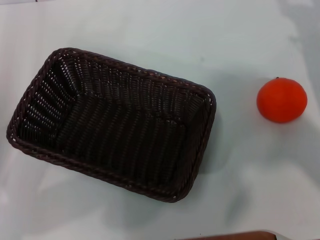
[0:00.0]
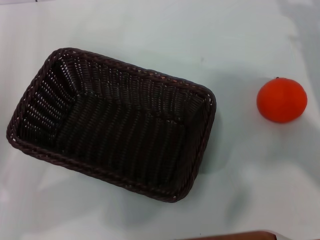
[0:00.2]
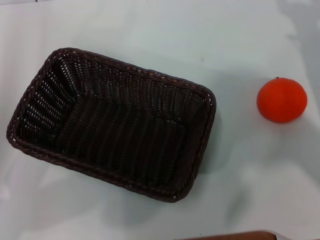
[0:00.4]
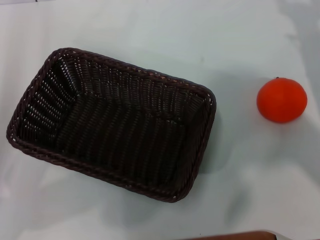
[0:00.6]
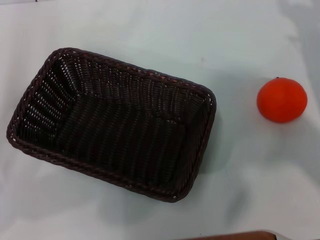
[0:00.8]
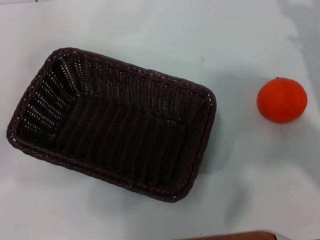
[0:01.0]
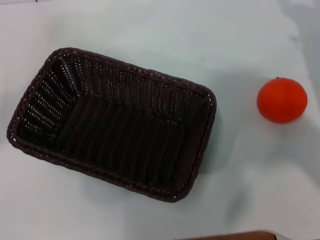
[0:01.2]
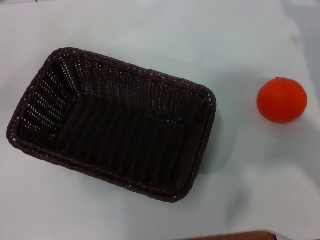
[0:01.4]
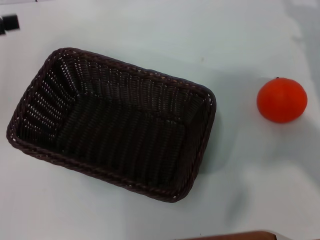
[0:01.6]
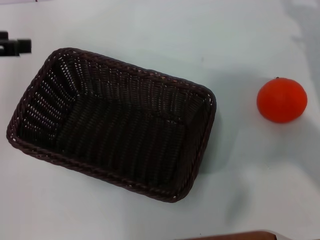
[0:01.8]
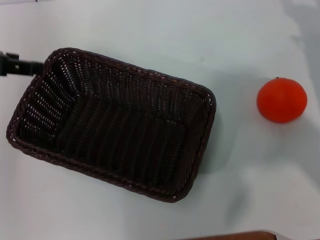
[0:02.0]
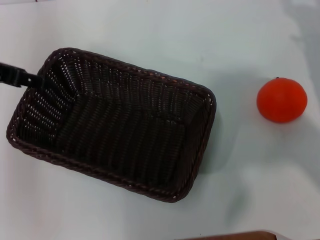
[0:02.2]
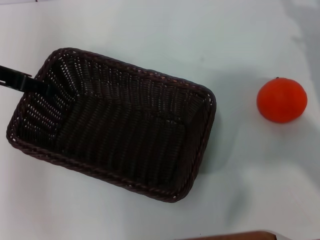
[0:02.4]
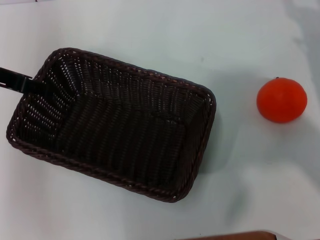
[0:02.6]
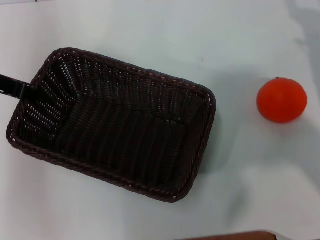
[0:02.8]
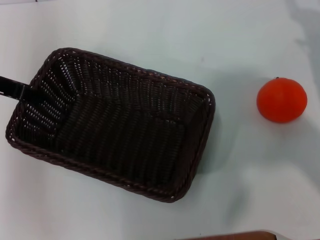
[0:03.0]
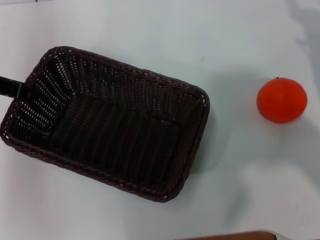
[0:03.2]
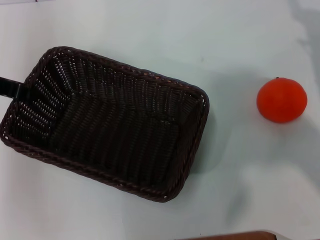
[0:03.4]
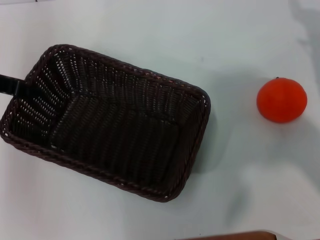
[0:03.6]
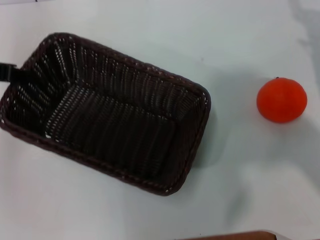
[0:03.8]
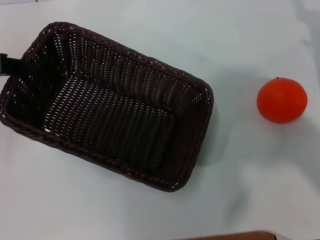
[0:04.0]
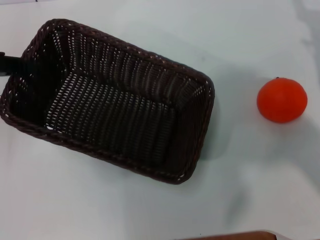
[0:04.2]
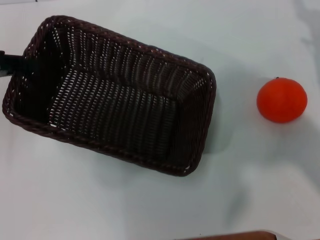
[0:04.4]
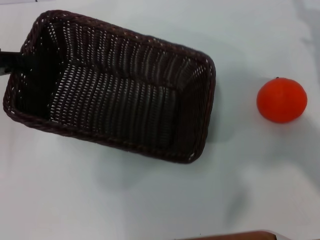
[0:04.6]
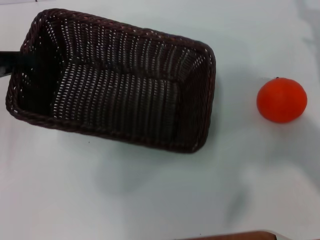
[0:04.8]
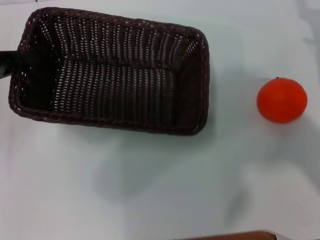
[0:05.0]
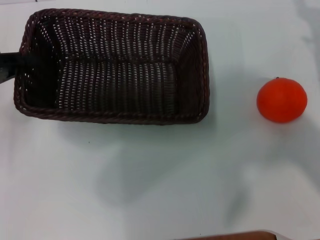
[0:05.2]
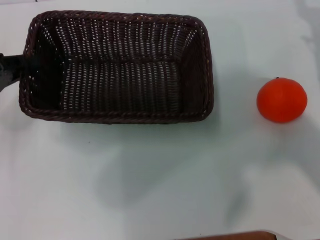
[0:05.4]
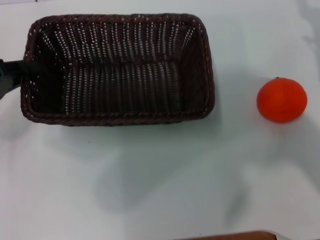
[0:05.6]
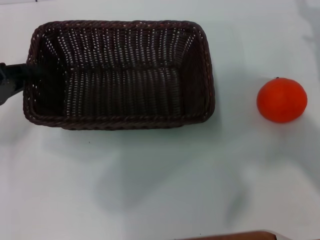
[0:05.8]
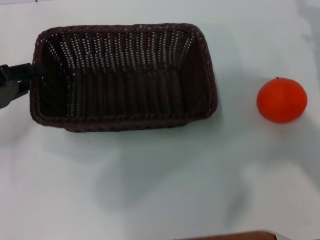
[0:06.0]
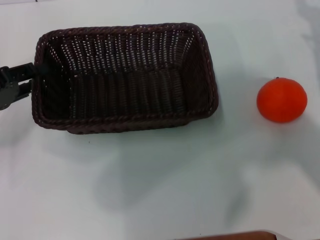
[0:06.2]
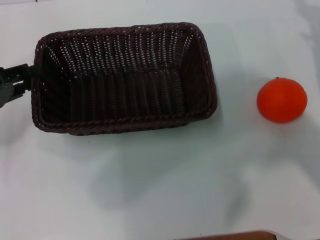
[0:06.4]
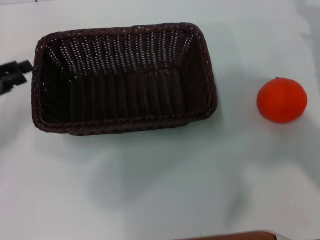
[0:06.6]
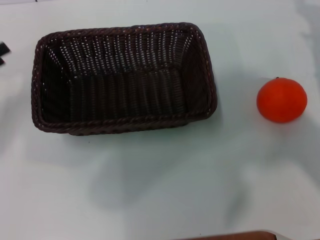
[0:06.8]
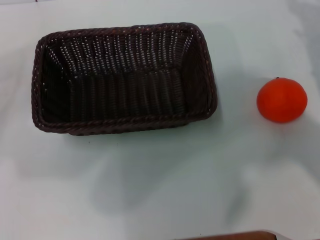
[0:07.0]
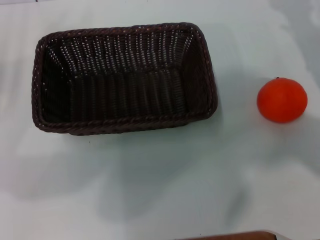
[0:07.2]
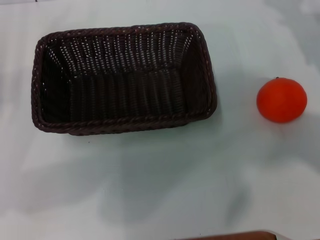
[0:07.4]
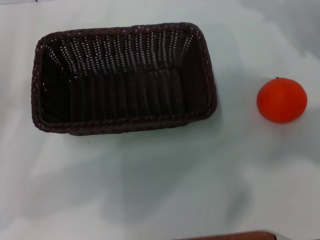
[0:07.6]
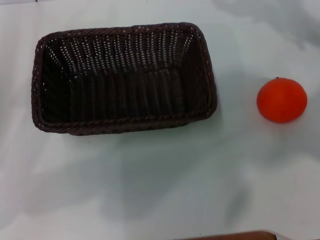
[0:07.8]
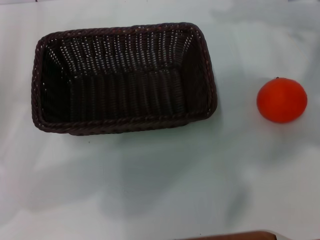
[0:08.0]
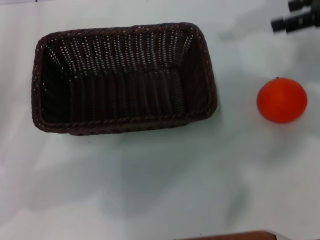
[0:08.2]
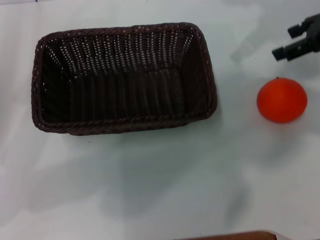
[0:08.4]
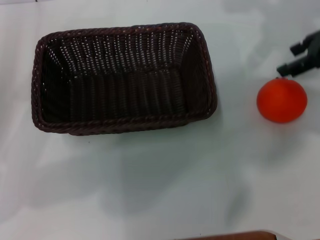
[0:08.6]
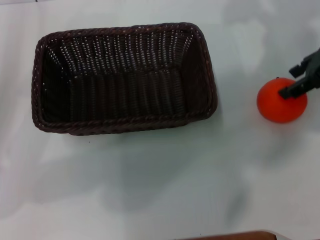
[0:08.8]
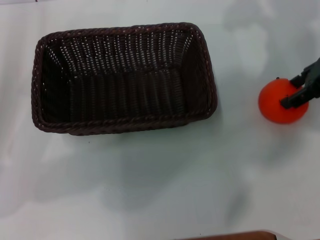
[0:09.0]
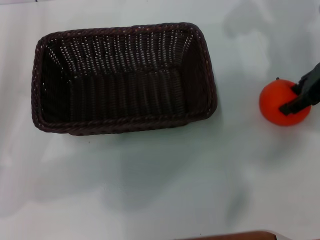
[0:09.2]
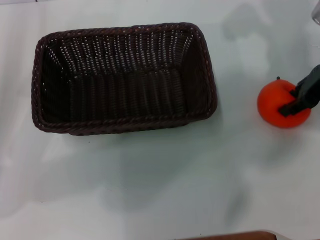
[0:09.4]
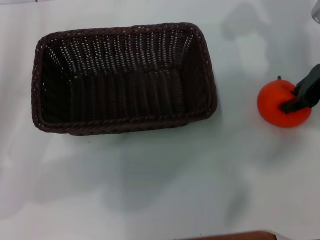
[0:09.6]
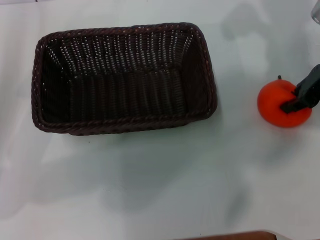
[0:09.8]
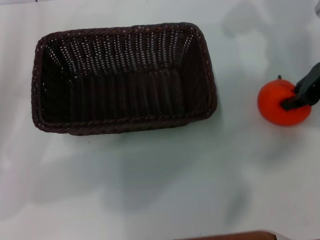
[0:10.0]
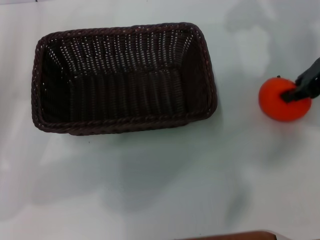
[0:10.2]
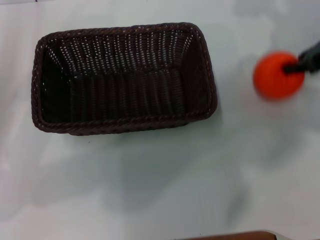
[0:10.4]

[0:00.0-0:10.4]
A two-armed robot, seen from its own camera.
Task of the whole recording: the left gripper pick up the black basket and place it horizontally in the middle of the table, the right gripper pick up the orange and place it into the black basket.
Step, 0:00.0 to 0:04.0: Pick up the dark basket with the left gripper.
Step, 0:04.2 to 0:06.4: Place the dark basket in the center of view with the left gripper.
Step, 0:06.8 to 0:10.4: Pick up the orange with the right gripper.
0:00.0 to 0:01.4: The left gripper travels upward and forward by about 15 cm.
0:01.4 to 0:03.0: The left gripper heads to the right, covering some 10 cm.
0:03.0 to 0:04.4: The left gripper moves to the left, some 5 cm, and closes up.
0:04.4 to 0:06.0: The left gripper goes some 10 cm downward.
0:06.0 to 0:07.4: The left gripper ends up about 5 cm from where it was, and opens its fingers. The right gripper moves some 5 cm.
0:07.4 to 0:09.0: The right gripper goes some 10 cm upward and to the left.
0:09.0 to 0:10.4: The right gripper closes.

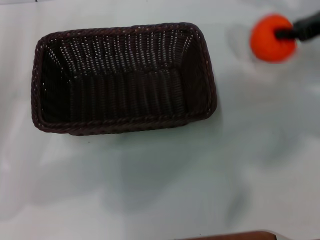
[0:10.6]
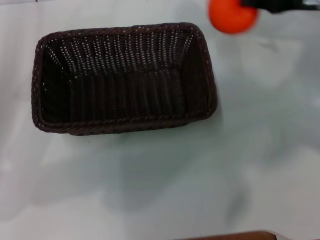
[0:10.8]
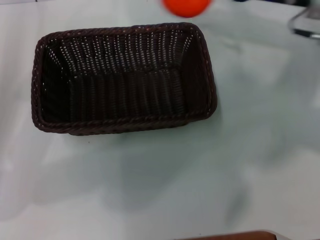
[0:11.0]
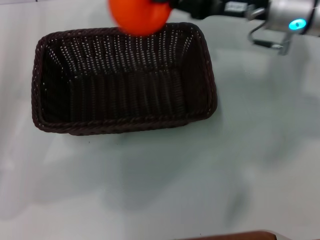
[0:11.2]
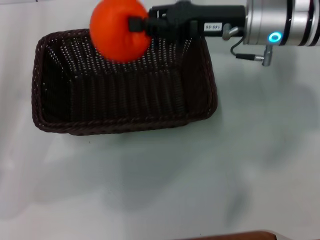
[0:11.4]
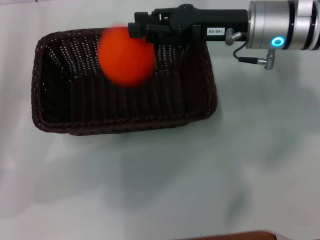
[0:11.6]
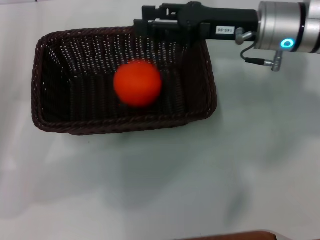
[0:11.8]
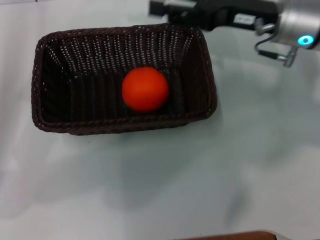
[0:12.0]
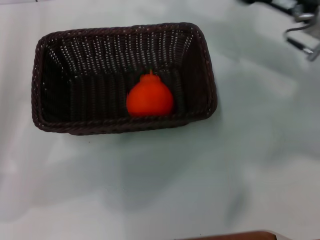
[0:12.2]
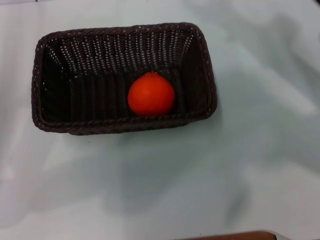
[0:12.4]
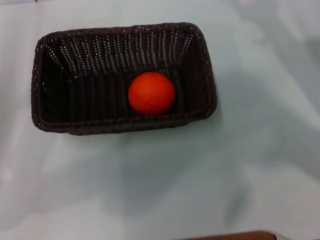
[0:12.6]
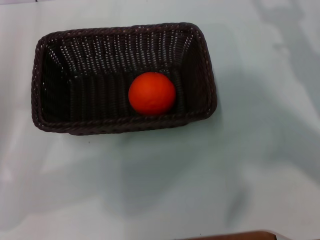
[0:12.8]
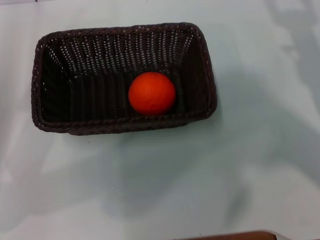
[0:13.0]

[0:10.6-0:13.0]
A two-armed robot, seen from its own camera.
Task of the whole recording: the left gripper pick up the black basket and place it horizontally in the middle of the table, the right gripper pick up the orange and place it into the black basket.
Step, 0:10.6 to 0:11.6: Place the orange into the dark basket with the right gripper.
0:10.6 to 0:11.8: The right gripper moves to the left, approximately 15 cm.
0:11.8 to 0:13.0: The right gripper moves to the right, backward and downward, some 20 cm, and opens.

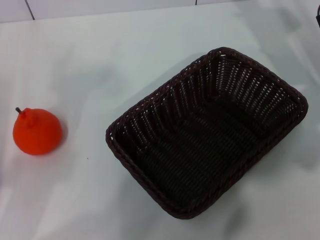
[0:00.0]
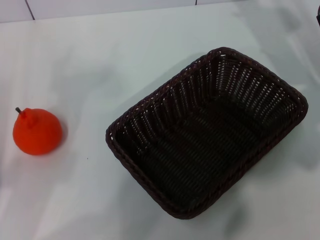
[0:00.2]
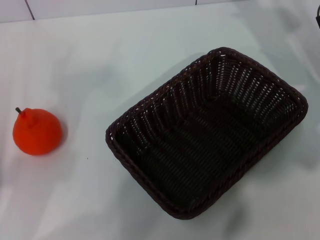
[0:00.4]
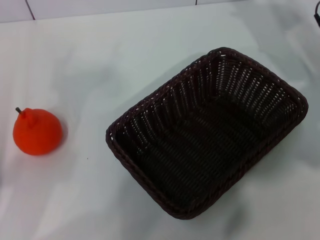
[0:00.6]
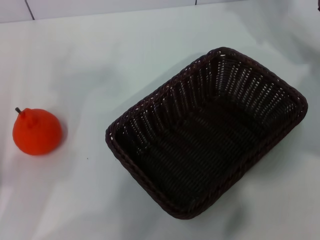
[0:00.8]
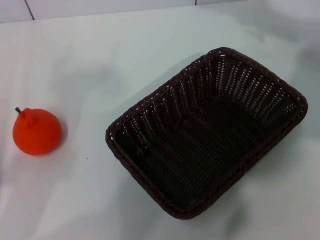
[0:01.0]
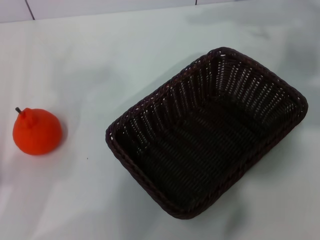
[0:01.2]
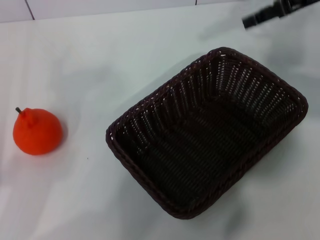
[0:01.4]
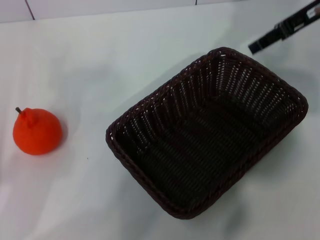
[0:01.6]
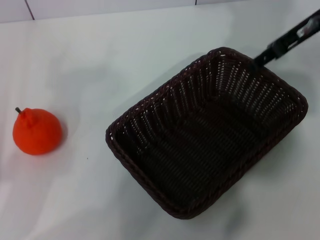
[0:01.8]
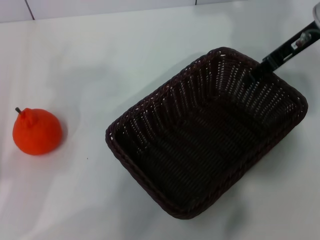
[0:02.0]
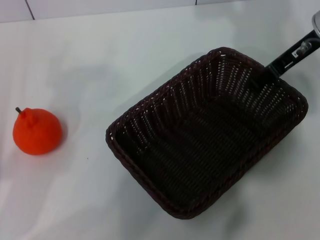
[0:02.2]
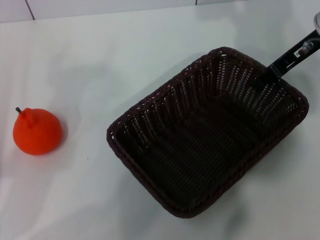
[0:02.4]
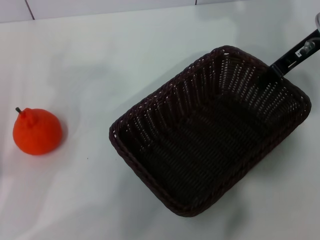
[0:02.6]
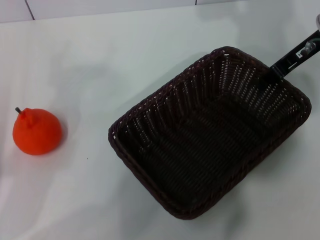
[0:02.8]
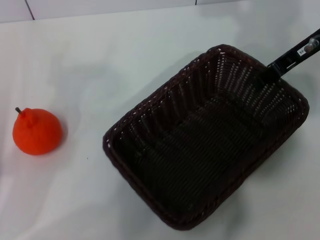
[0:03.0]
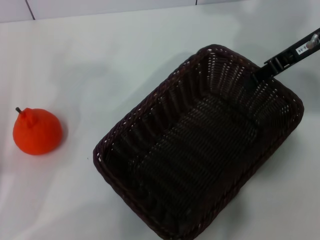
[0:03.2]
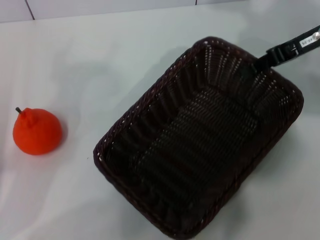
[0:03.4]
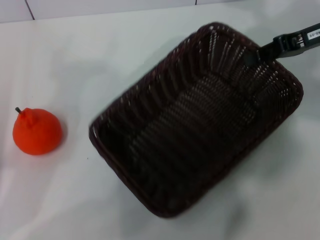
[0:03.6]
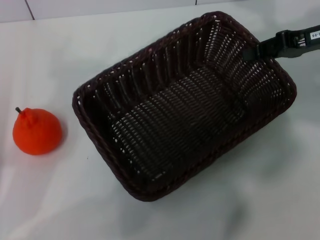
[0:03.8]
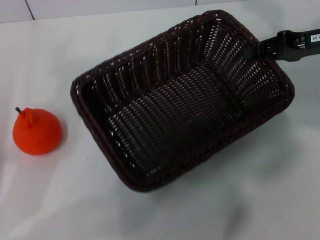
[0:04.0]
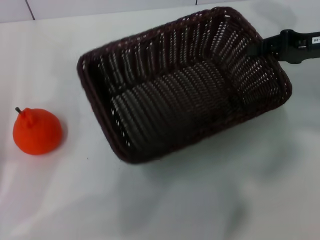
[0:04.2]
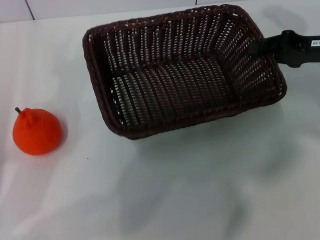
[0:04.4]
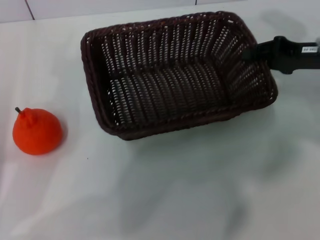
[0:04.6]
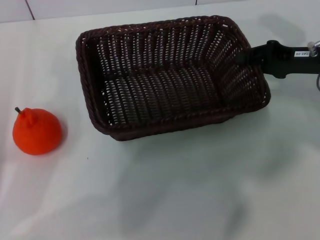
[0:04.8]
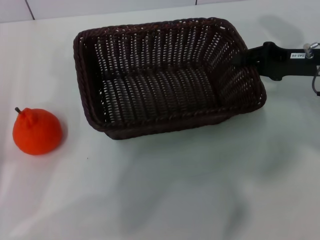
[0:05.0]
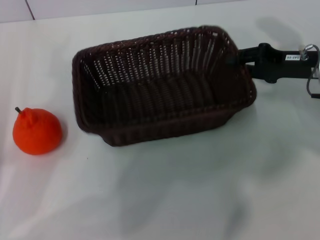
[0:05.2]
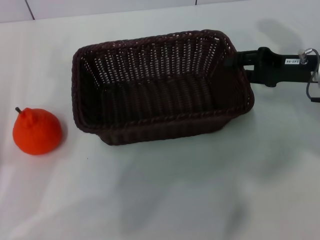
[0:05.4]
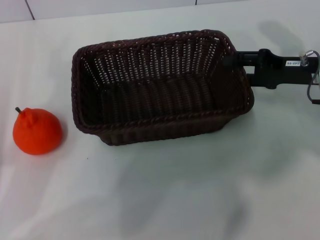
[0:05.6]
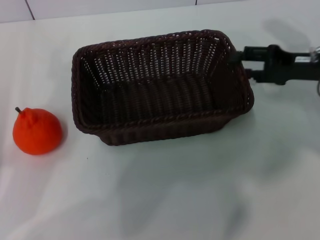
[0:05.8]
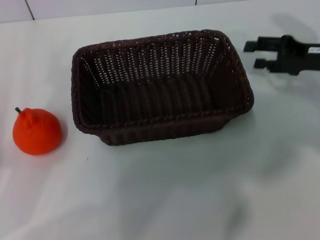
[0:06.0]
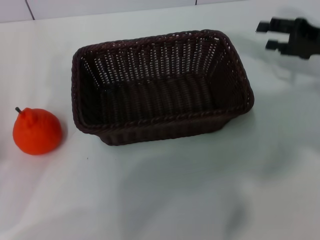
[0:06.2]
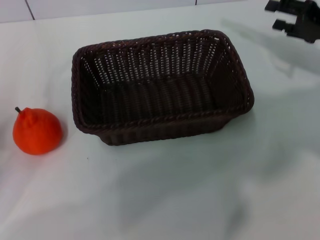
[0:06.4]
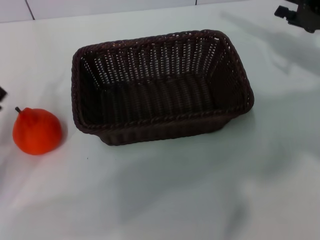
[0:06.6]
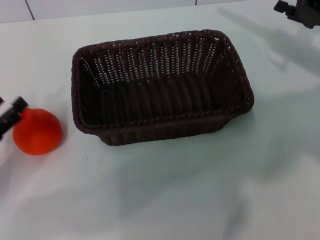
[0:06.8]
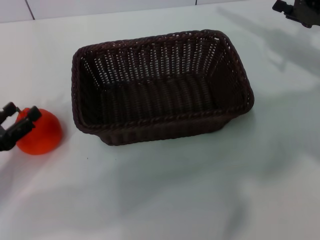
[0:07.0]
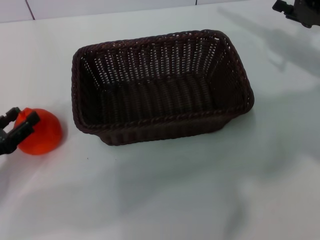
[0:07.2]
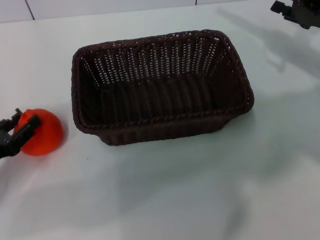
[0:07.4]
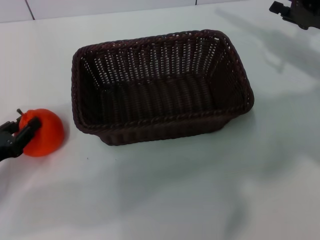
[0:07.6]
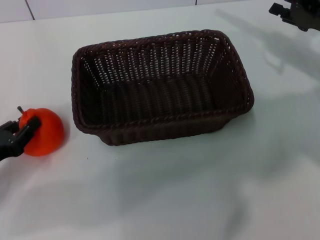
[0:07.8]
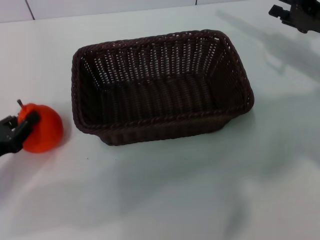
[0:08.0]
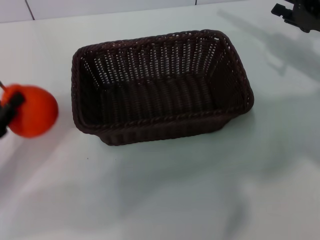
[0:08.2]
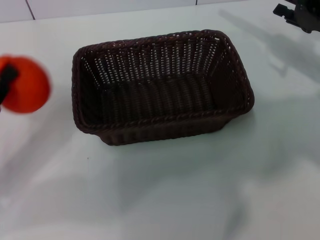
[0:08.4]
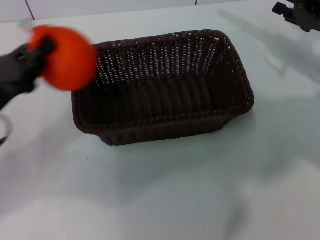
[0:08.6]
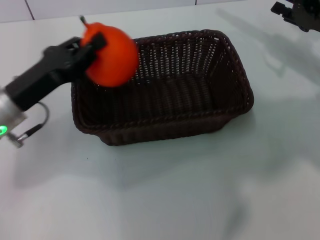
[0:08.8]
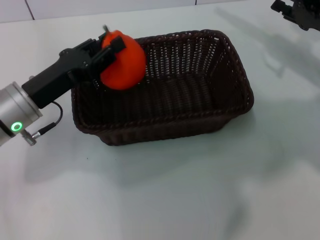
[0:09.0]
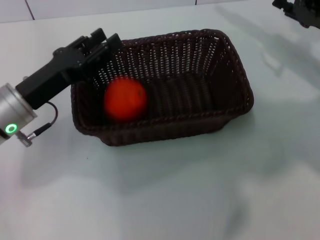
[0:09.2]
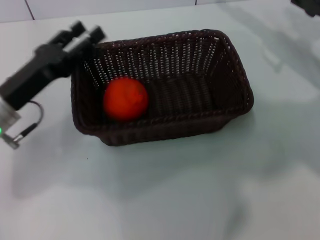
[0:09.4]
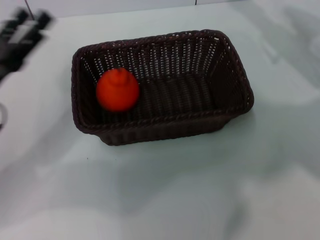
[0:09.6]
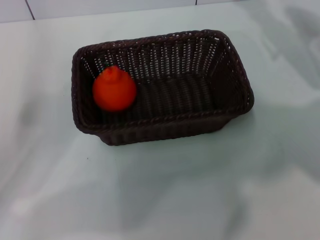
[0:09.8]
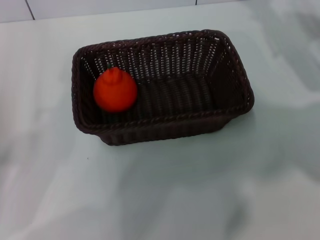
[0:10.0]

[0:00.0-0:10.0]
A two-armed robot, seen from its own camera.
Task of the whole recording: the right gripper pick up the black basket and place it horizontally in the middle of the table, the left gripper pick up the orange and place it into the black basket.
Step, 0:00.0 to 0:03.6: Pick up the dark basket with the right gripper.
Step, 0:03.8 to 0:05.8: Place the dark basket in the center of view with the right gripper.
Step, 0:06.0 to 0:08.0: Pick up the orange with the left gripper.
Step, 0:08.2 to 0:09.4: Place the orange into the dark basket with the left gripper.
0:00.0 to 0:01.4: The right gripper travels upward by approximately 10 cm.
0:01.4 to 0:02.8: The right gripper shifts approximately 5 cm downward, and closes its fingers.
0:02.8 to 0:04.2: The right gripper is displaced to the right by approximately 5 cm.
0:04.2 to 0:05.8: The right gripper opens.
0:05.8 to 0:07.2: The left gripper shifts by roughly 5 cm.
0:07.2 to 0:08.6: The left gripper goes approximately 10 cm upward and to the right, and closes up.
0:08.6 to 0:10.0: The left gripper travels backward and to the left by about 10 cm, and opens.
